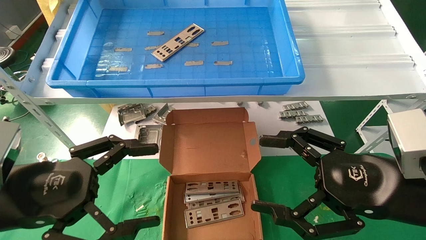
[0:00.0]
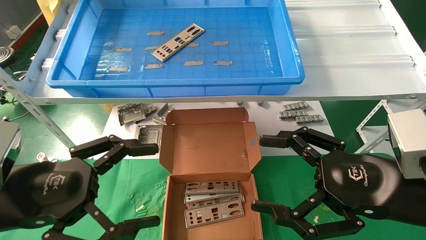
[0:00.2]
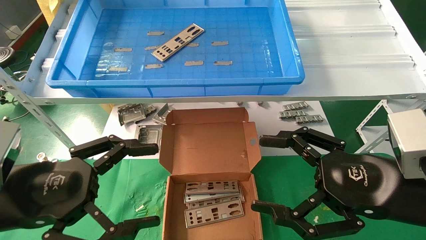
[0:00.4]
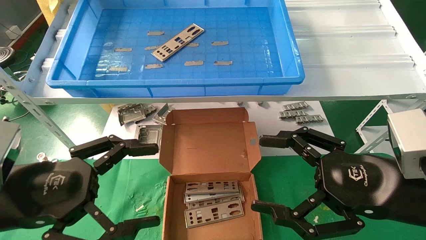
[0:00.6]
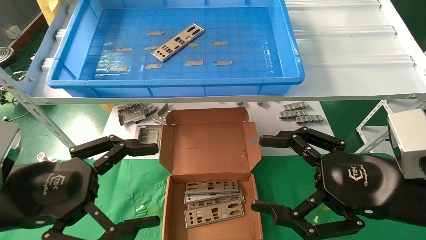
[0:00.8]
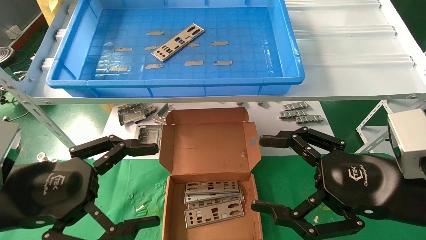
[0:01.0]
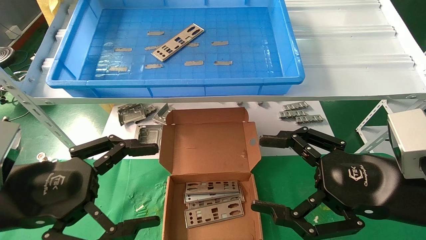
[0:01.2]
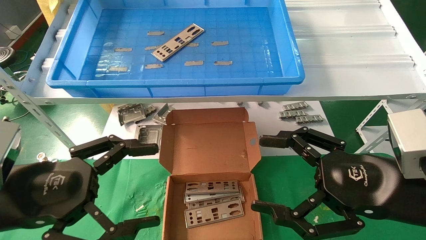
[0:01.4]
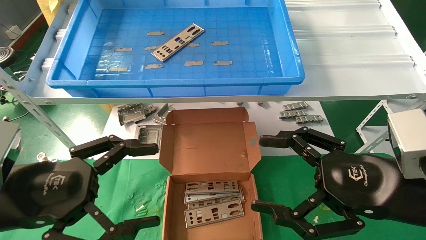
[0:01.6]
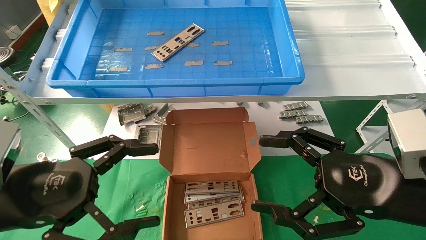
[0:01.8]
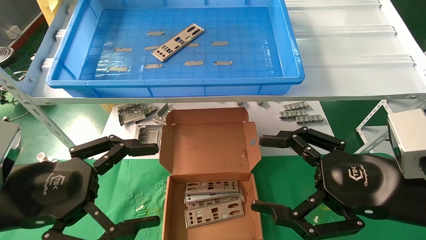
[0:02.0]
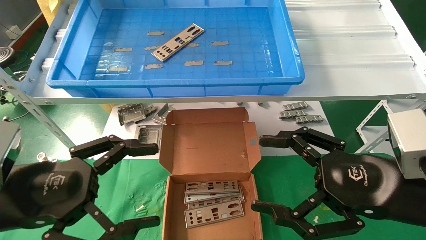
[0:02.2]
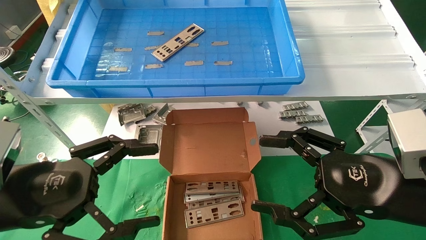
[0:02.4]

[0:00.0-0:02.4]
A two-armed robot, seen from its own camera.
Task of the whole recording: pick up the parts on the tray and put them in the cardboard box.
0:00.0 to 0:02.4: Both grippers stay put.

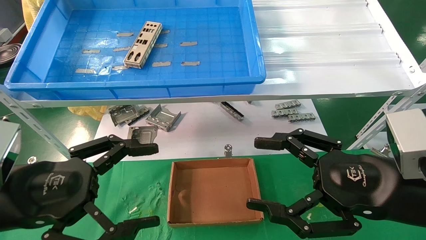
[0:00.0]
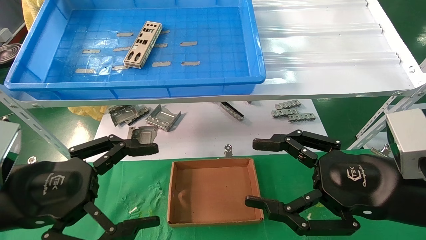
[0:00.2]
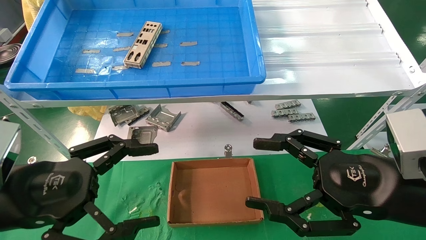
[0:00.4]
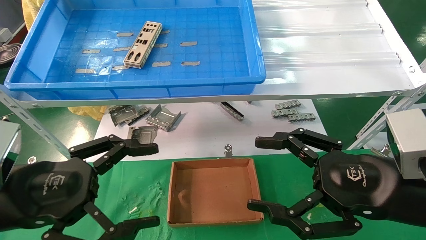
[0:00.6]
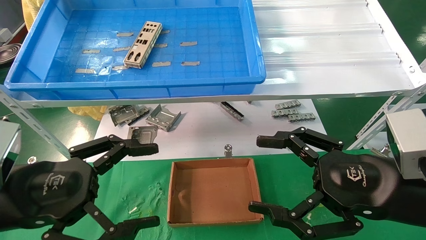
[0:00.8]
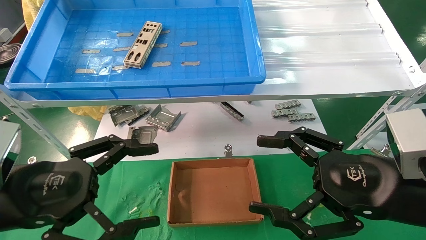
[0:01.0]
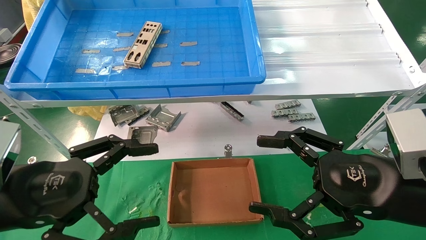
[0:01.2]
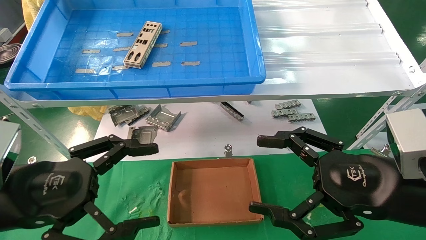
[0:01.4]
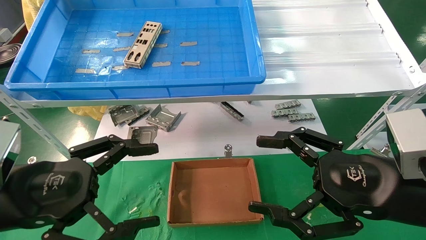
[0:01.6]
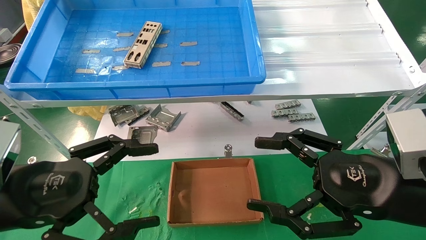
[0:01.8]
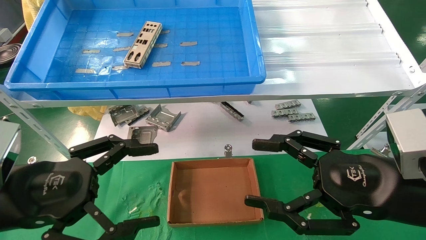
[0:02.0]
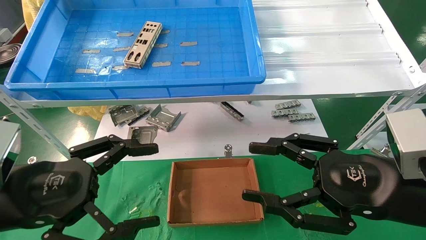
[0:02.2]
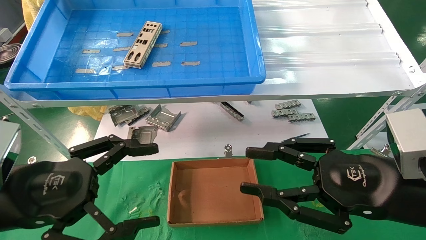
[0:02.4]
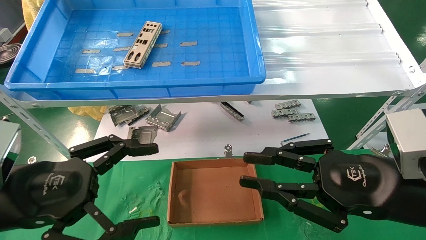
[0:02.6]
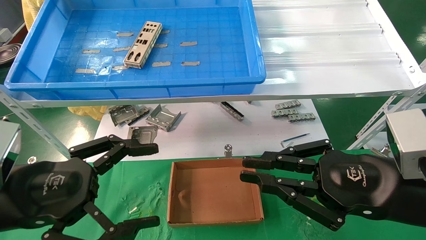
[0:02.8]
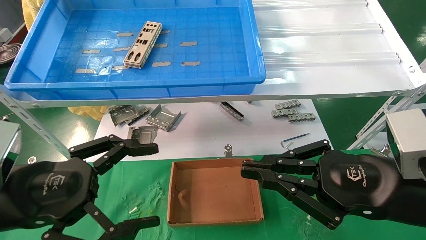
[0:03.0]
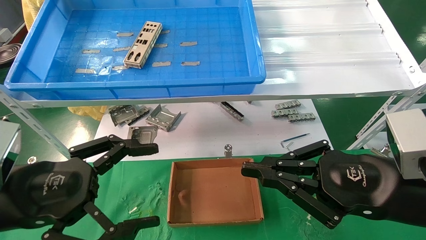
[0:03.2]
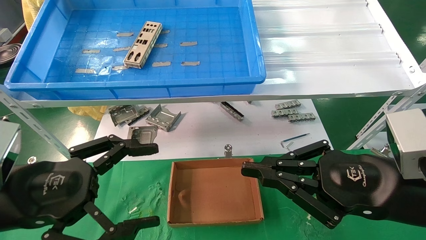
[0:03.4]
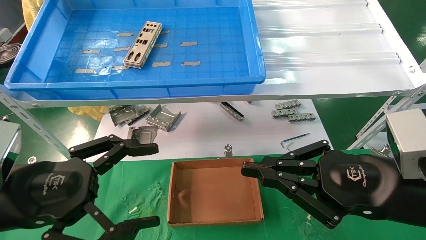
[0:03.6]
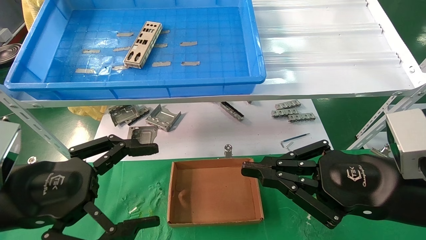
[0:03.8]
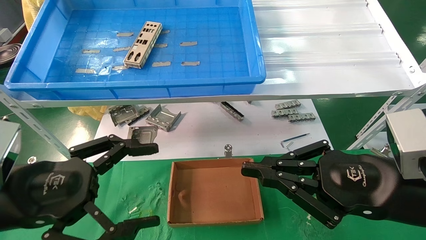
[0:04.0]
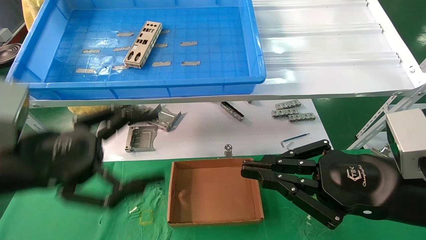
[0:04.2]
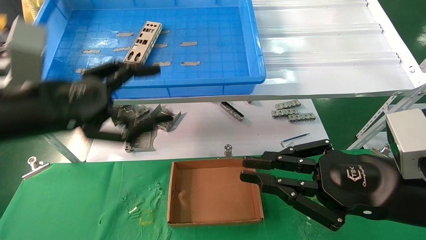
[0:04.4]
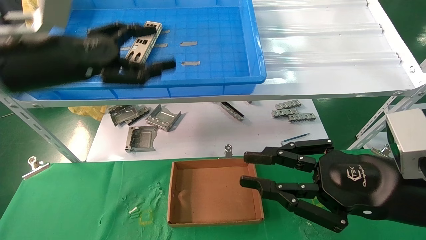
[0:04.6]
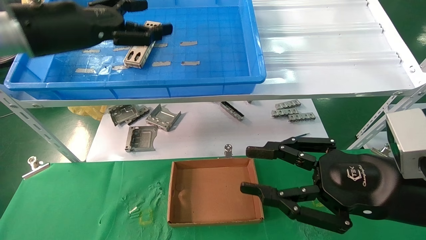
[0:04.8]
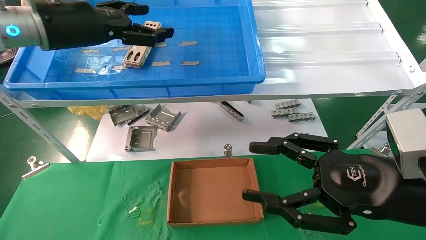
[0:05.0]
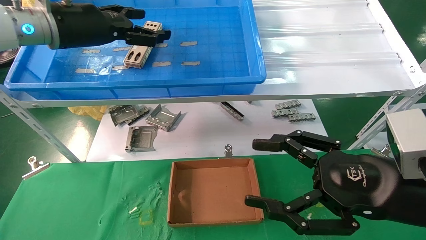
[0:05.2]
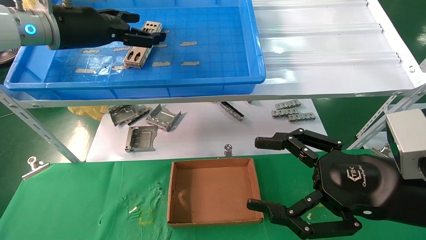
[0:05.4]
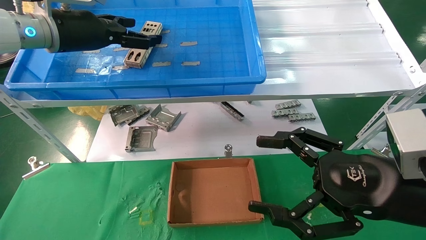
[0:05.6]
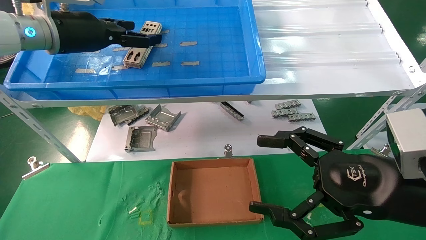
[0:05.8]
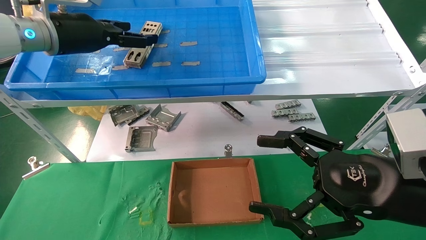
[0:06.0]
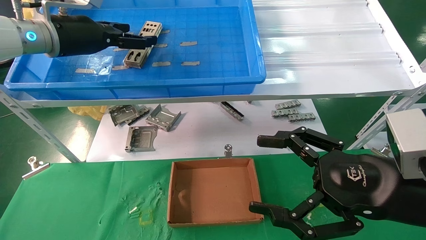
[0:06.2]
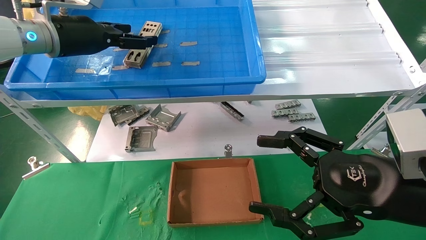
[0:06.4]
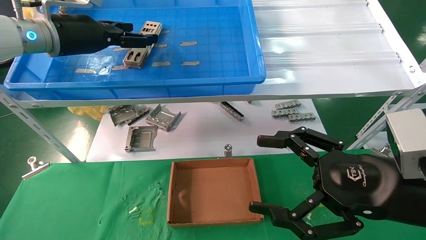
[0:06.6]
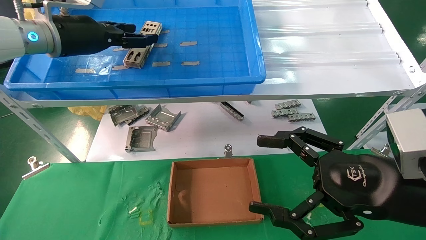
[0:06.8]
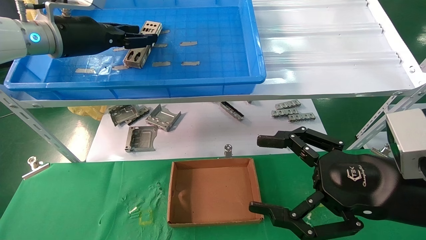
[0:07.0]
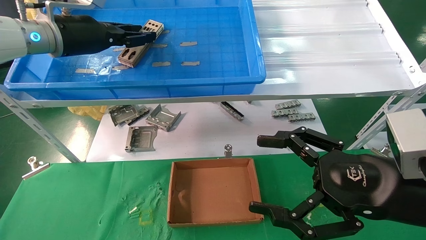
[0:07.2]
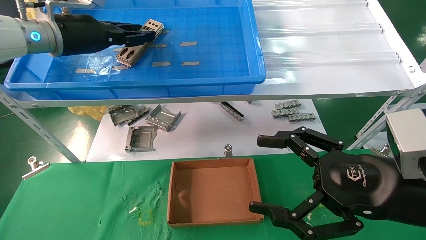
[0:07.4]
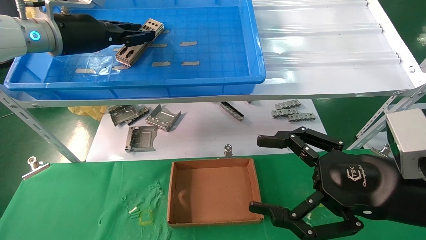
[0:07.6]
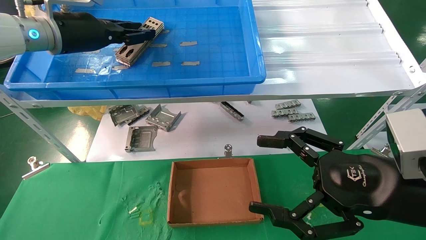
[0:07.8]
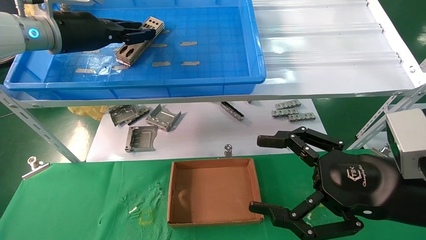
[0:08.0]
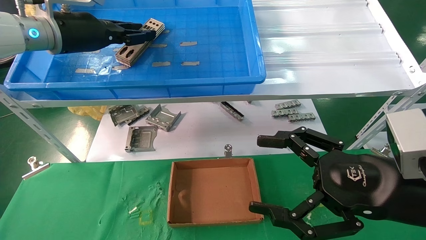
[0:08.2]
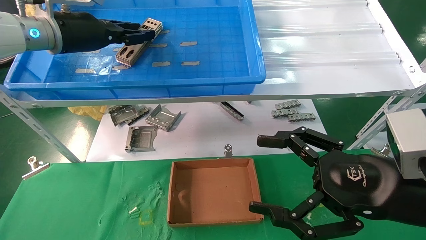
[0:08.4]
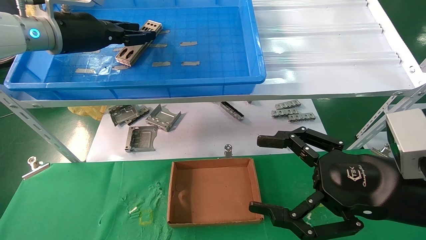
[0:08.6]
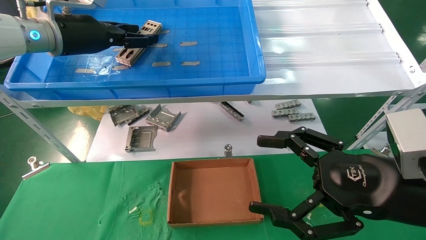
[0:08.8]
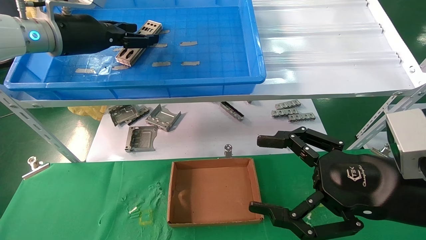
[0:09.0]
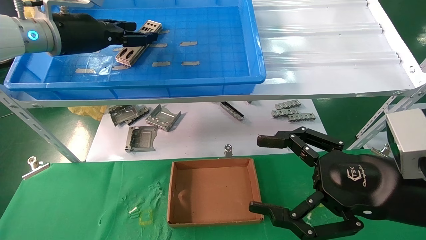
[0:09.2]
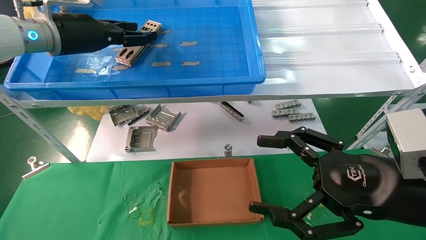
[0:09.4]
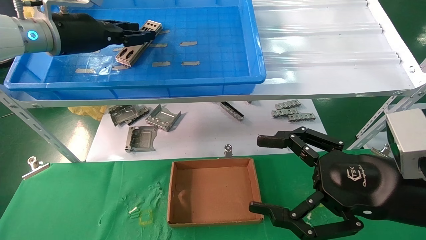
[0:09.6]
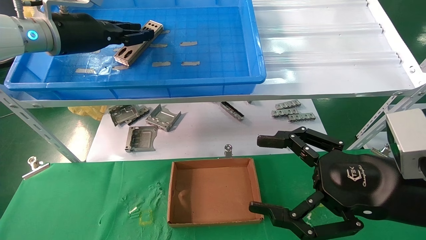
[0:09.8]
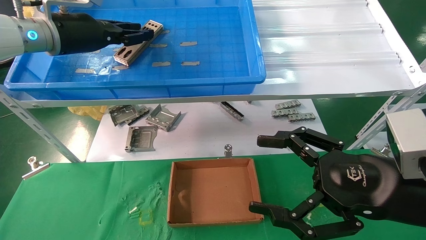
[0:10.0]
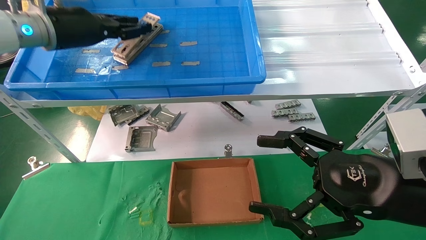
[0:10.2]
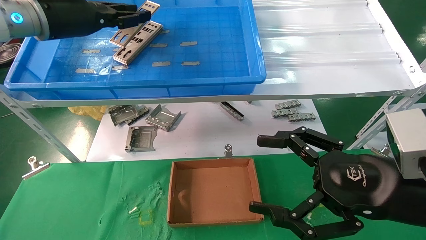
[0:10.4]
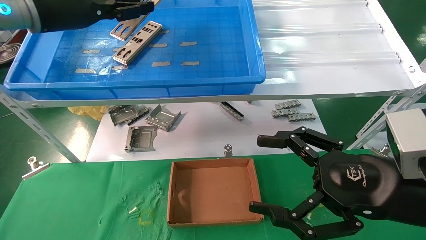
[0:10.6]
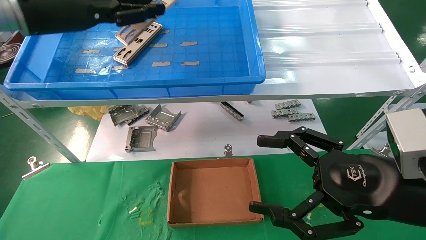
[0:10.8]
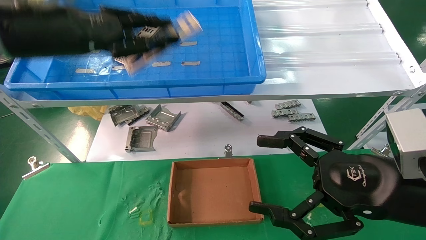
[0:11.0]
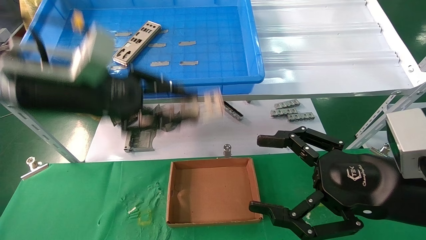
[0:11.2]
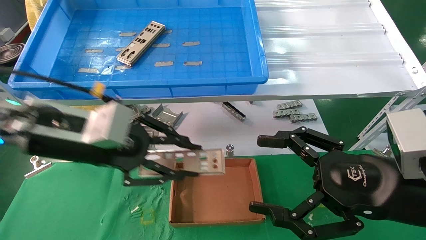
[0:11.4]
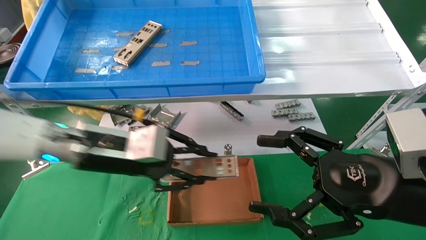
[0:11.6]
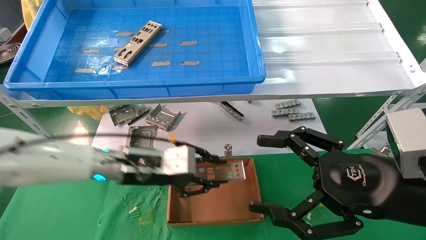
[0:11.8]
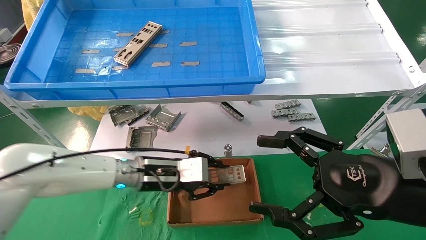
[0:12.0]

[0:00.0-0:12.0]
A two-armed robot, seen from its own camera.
Task of the whole recording: pick up the parts on the tray and put them in the cardboard box.
Step, 0:04.6 to 0:09.8: Pick up the IO bracket from the container box.
0:00.0 to 0:01.6: The two grippers keep their place.
0:01.6 to 0:03.0: The right gripper closes up.
0:03.0 to 0:04.4: The left gripper heads upward and forward, covering some 10 cm.
0:04.4 to 0:06.0: The right gripper opens its fingers; the left gripper heads forward and upward, covering approximately 20 cm.
0:06.0 to 0:07.6: The left gripper closes up.
0:07.6 to 0:09.0: The left gripper opens its fingers.
0:09.0 to 0:10.4: The left gripper closes.
0:10.4 to 0:12.0: The left gripper travels downward and to the right by about 30 cm.

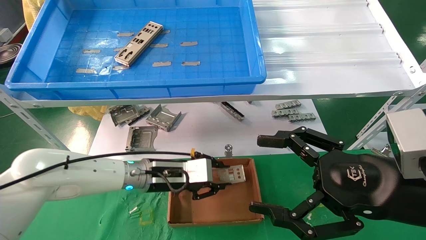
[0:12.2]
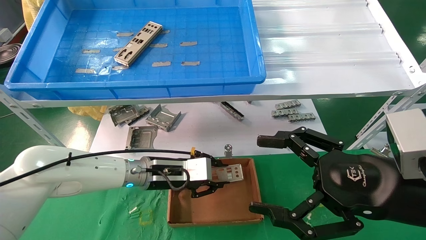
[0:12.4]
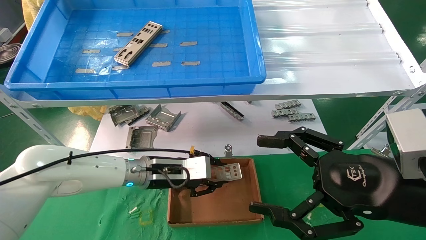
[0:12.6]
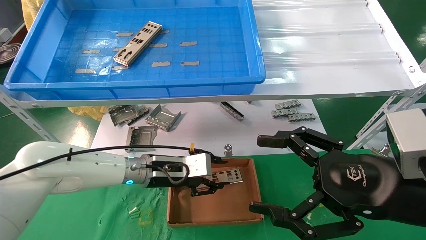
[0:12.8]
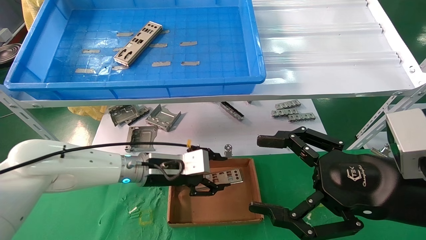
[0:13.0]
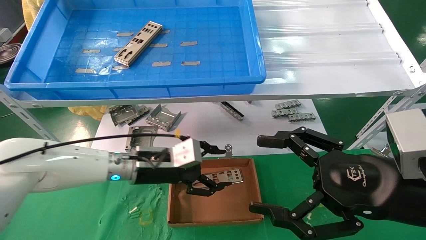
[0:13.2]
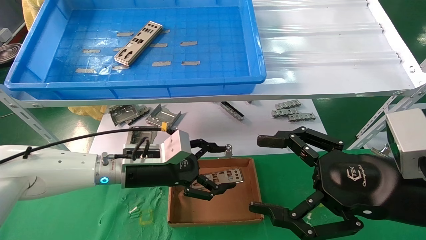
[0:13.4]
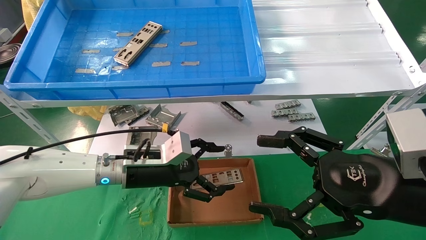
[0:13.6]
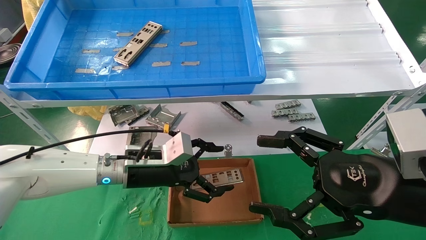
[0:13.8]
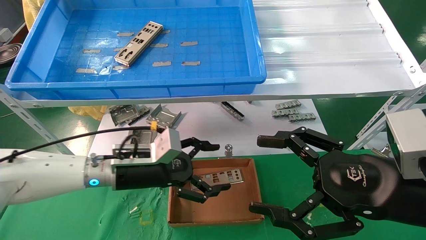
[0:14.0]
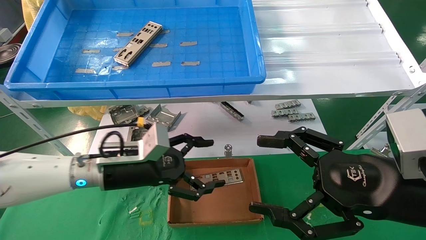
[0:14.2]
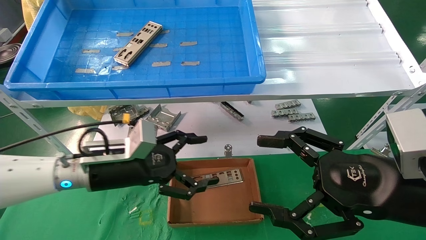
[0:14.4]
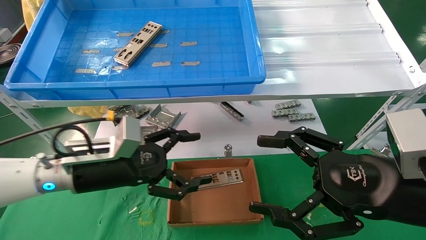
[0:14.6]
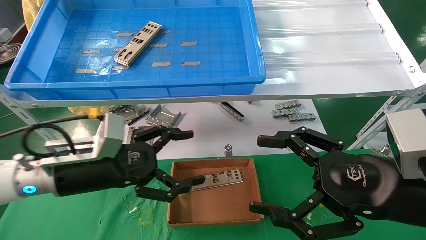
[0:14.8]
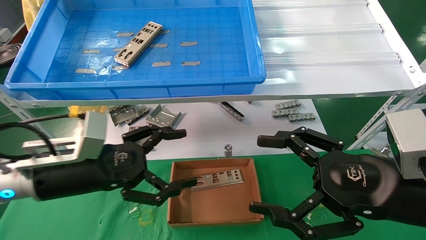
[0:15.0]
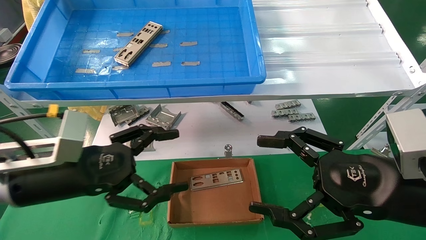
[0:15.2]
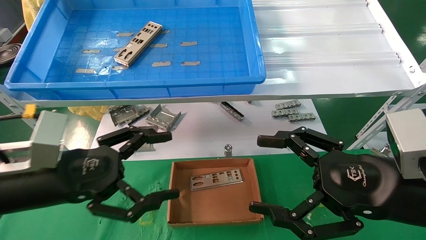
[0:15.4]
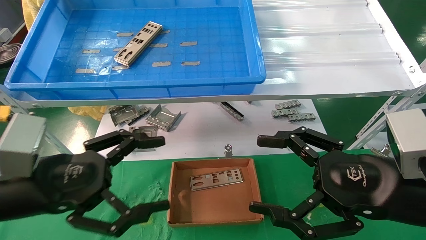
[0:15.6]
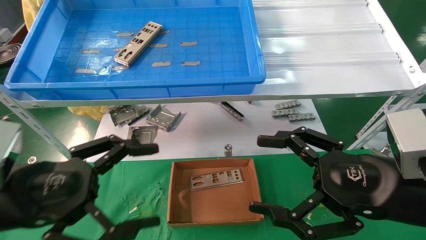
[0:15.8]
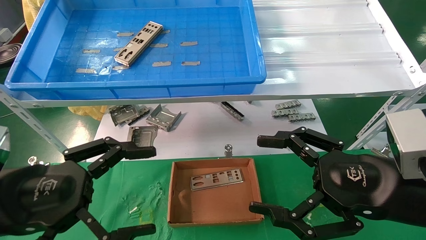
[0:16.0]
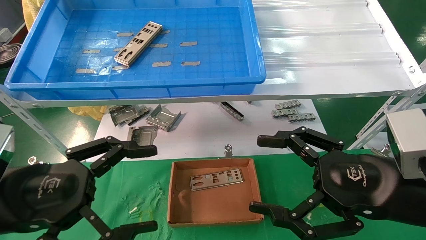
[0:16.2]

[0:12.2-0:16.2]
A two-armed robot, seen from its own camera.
Task of the whole recording: pick up the parts on the tray and put them in the cardboard box.
0:12.2 to 0:13.6: The left gripper opens its fingers.
0:13.6 to 0:14.8: The left gripper is displaced backward and to the left by some 10 cm.
0:14.8 to 0:16.2: The left gripper is displaced backward by roughly 10 cm.
